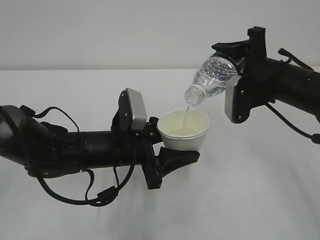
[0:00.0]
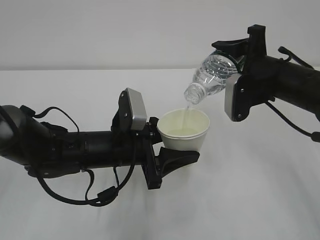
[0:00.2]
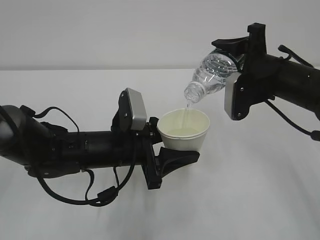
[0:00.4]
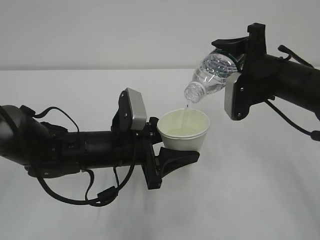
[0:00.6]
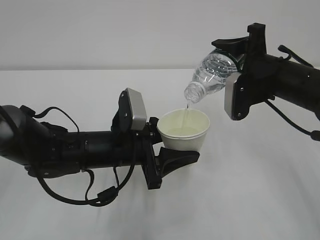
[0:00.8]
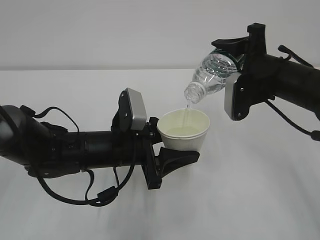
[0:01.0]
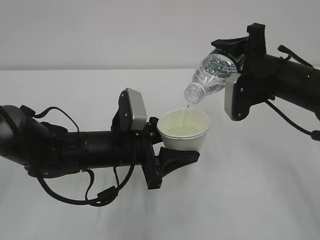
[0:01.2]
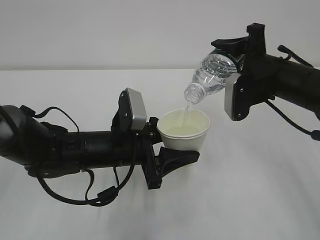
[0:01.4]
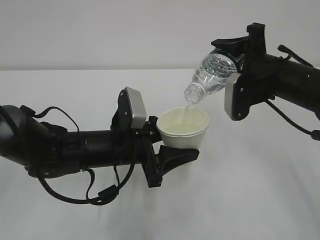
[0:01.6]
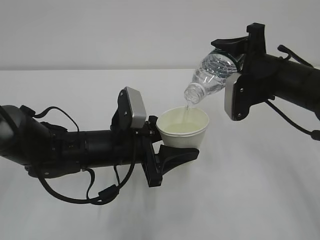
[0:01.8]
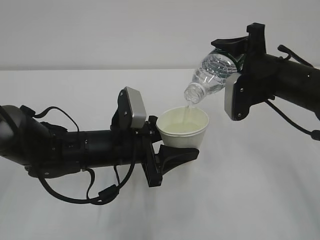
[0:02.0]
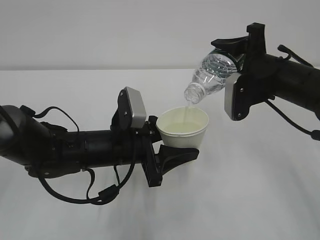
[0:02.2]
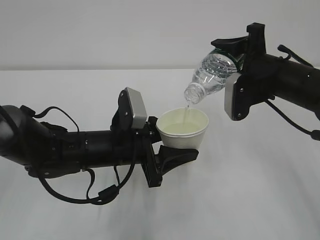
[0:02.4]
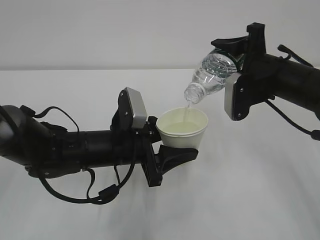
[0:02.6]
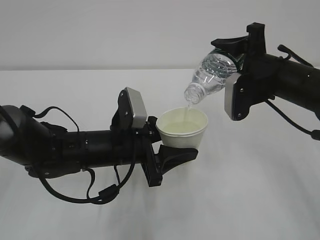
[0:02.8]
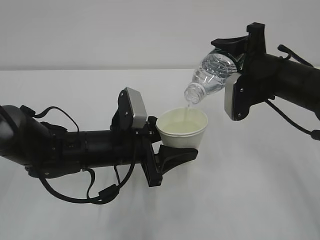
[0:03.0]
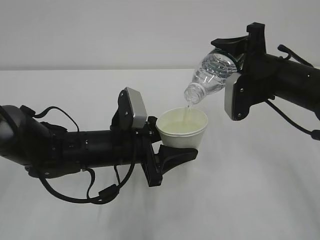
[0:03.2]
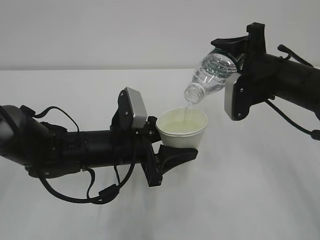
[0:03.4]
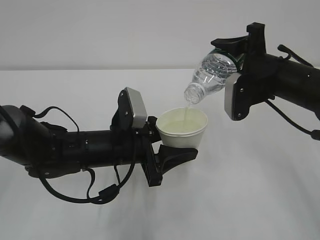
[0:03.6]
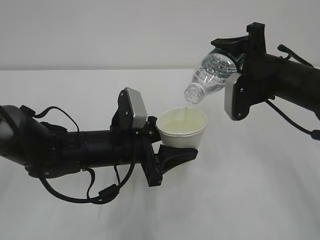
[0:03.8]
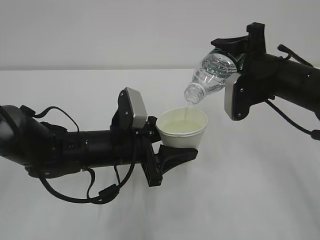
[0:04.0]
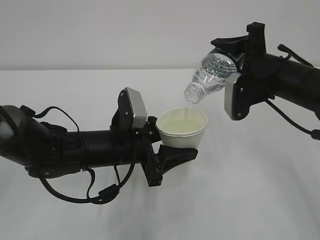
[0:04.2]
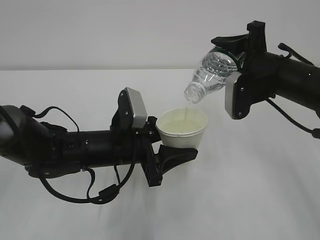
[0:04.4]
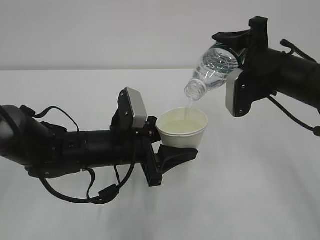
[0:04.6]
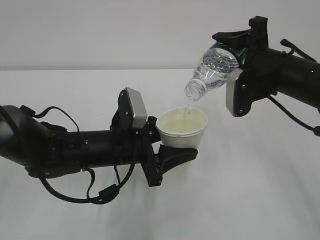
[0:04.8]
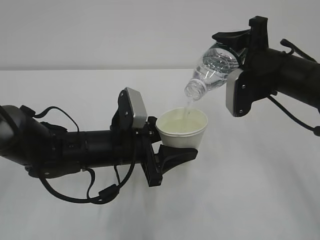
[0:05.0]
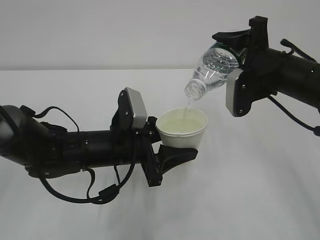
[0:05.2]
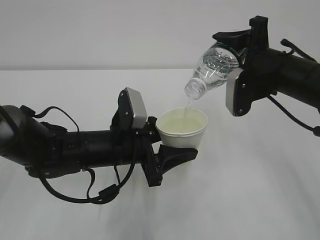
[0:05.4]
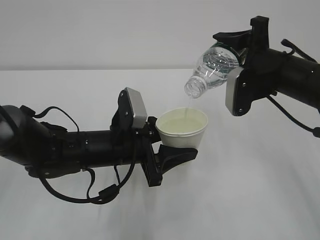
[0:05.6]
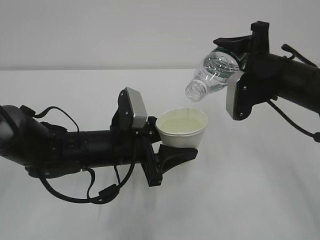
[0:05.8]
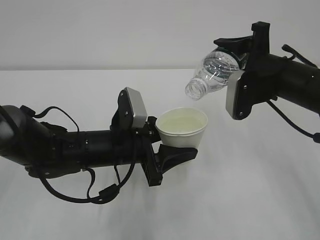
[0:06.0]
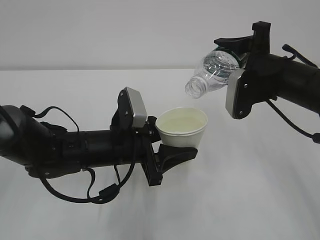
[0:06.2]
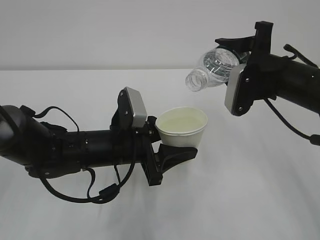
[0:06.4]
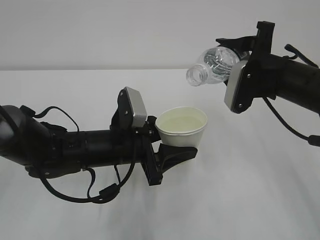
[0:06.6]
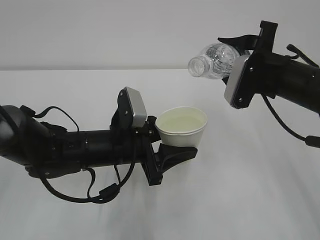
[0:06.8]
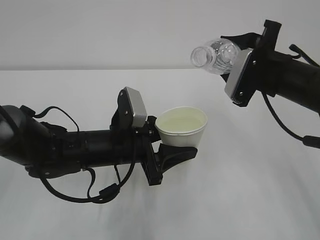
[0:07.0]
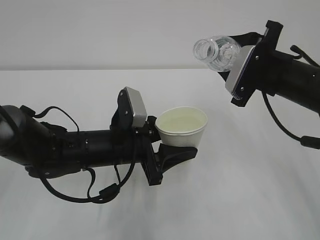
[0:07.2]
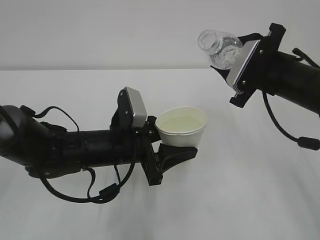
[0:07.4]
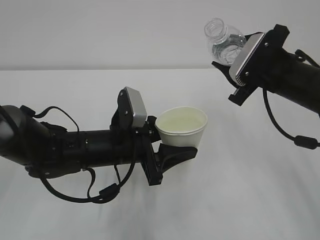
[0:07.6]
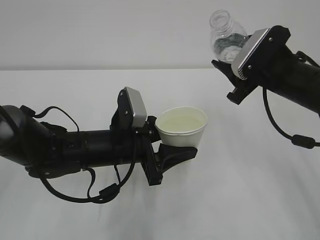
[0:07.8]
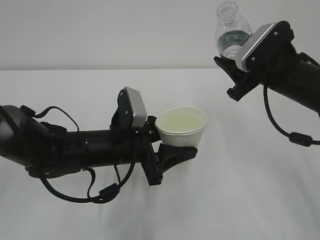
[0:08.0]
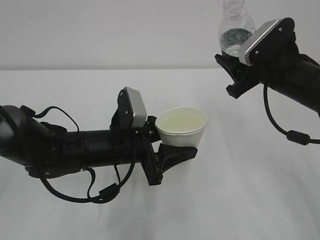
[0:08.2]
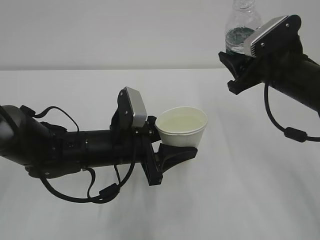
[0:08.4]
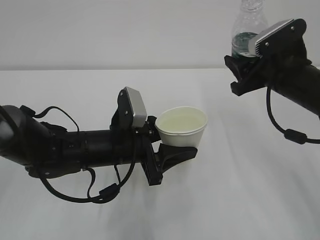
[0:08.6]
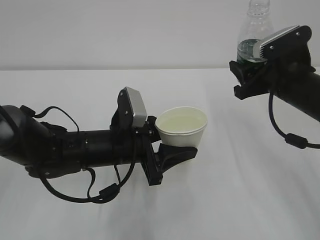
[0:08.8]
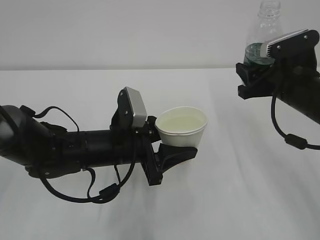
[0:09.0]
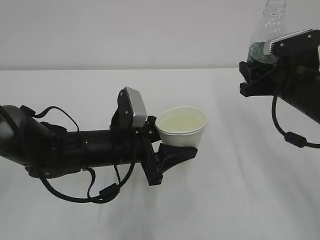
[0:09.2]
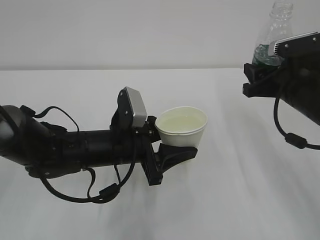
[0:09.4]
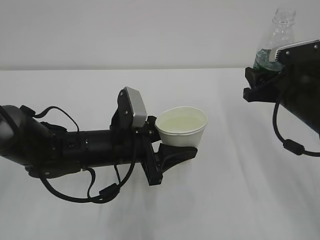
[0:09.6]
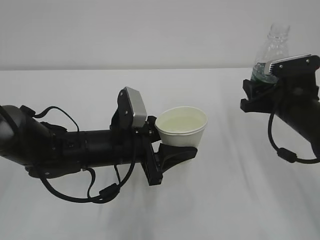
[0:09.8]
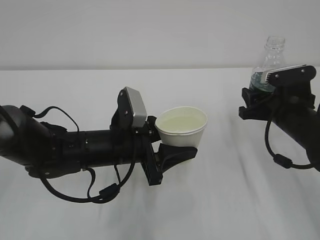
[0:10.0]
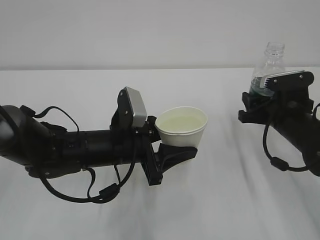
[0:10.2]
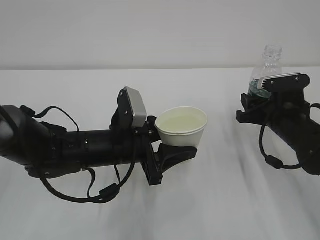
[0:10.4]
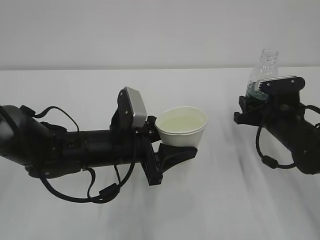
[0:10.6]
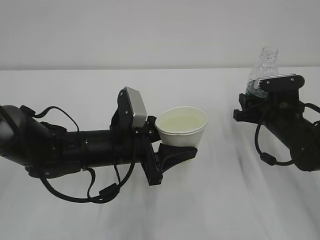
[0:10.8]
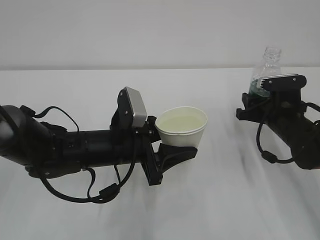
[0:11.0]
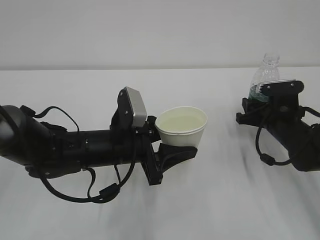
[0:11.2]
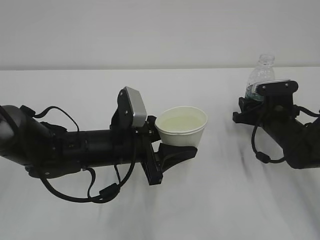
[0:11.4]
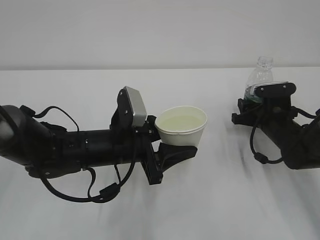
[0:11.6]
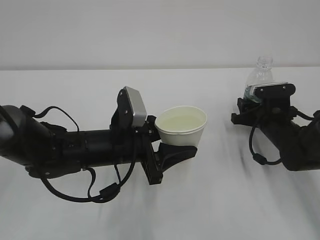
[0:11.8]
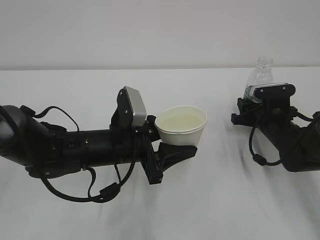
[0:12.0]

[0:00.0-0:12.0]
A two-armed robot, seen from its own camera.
0:00.0 to 0:06.0: Neither gripper changes place.
0:09.0 to 0:10.4: The right gripper moves downward, some 10 cm.
0:10.4 to 0:12.0: The right gripper moves some 5 cm.

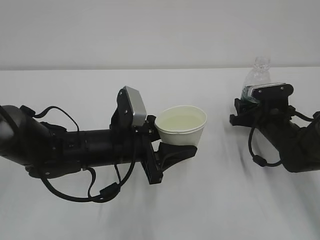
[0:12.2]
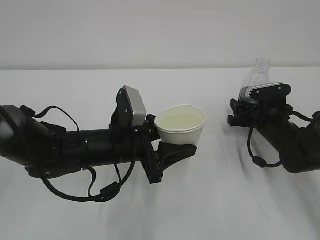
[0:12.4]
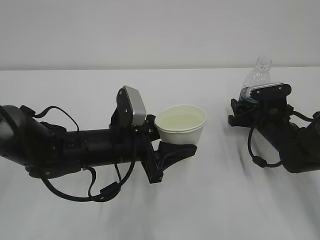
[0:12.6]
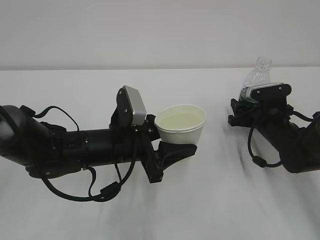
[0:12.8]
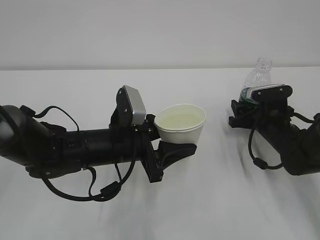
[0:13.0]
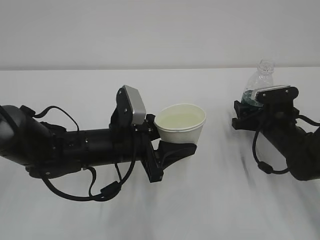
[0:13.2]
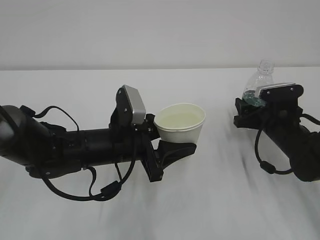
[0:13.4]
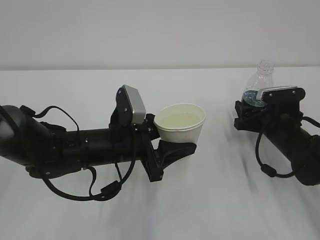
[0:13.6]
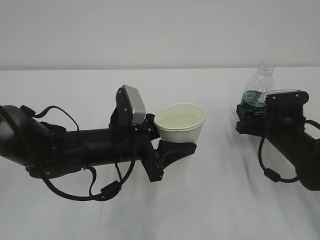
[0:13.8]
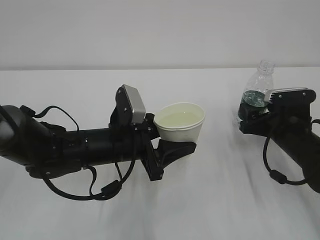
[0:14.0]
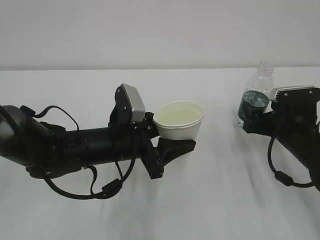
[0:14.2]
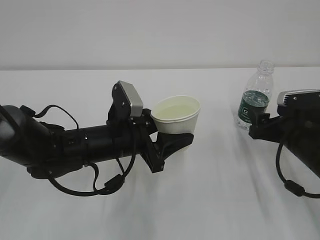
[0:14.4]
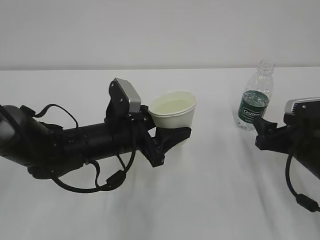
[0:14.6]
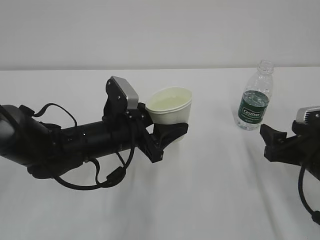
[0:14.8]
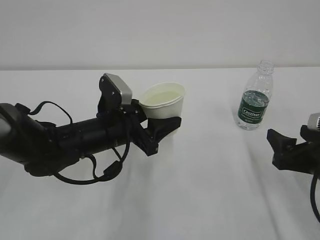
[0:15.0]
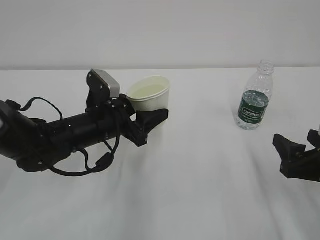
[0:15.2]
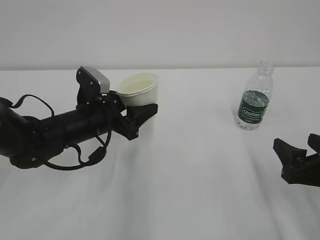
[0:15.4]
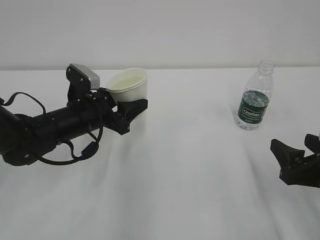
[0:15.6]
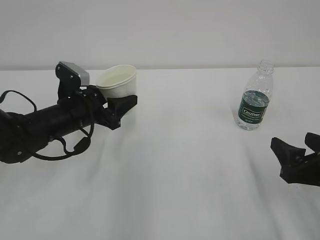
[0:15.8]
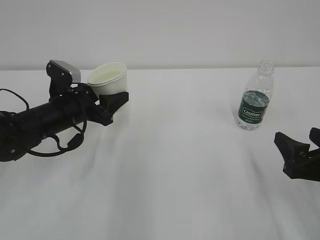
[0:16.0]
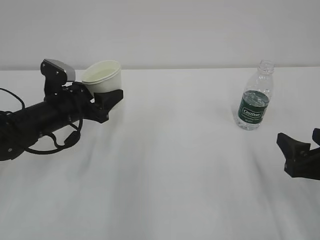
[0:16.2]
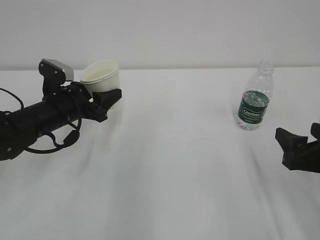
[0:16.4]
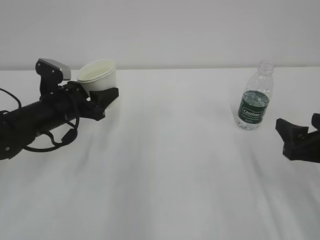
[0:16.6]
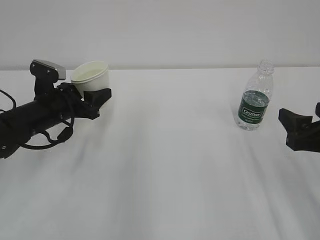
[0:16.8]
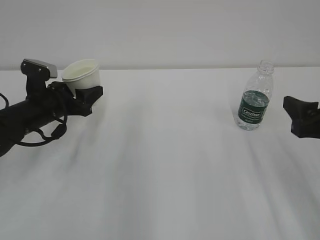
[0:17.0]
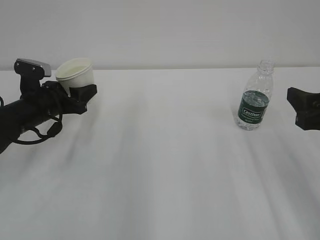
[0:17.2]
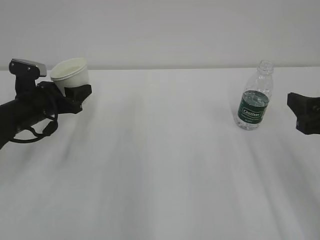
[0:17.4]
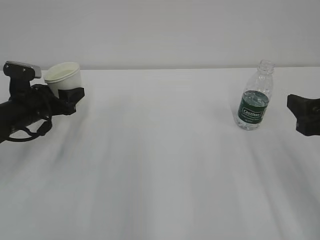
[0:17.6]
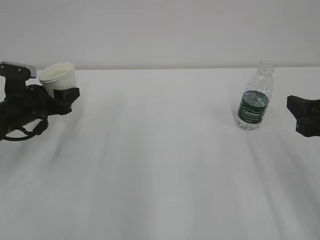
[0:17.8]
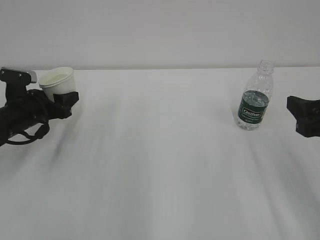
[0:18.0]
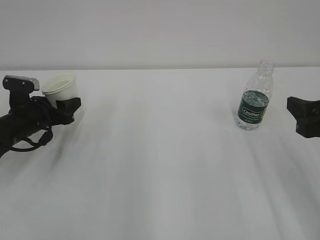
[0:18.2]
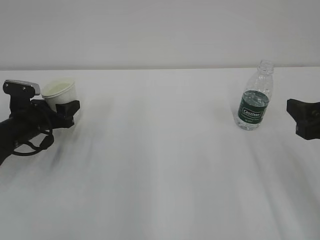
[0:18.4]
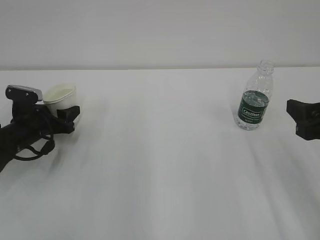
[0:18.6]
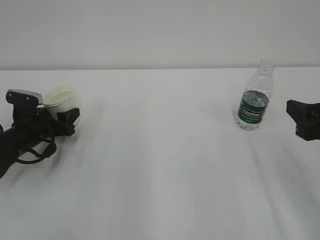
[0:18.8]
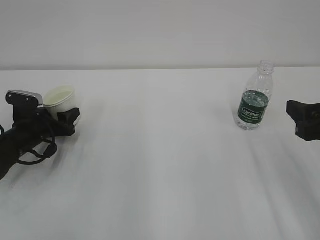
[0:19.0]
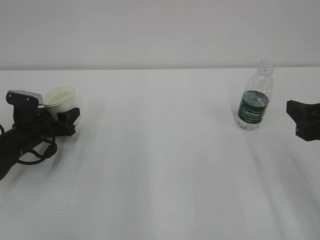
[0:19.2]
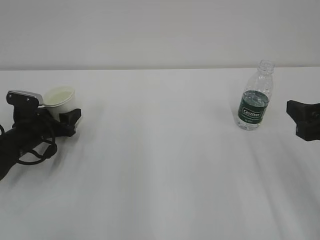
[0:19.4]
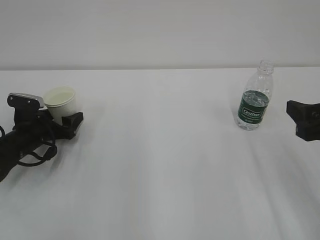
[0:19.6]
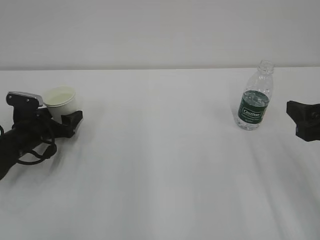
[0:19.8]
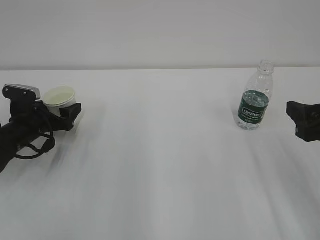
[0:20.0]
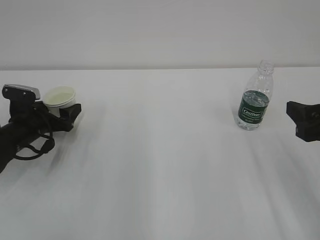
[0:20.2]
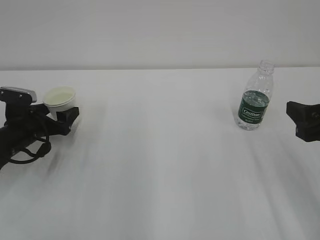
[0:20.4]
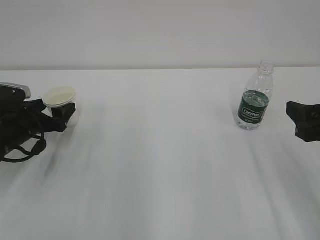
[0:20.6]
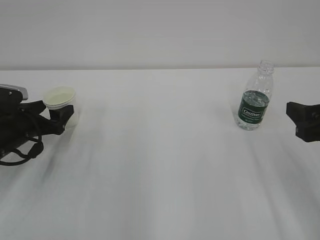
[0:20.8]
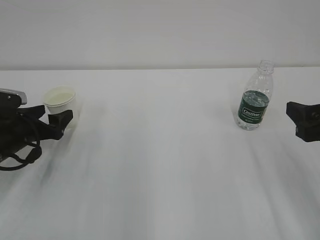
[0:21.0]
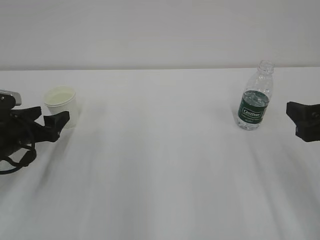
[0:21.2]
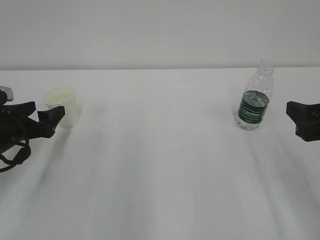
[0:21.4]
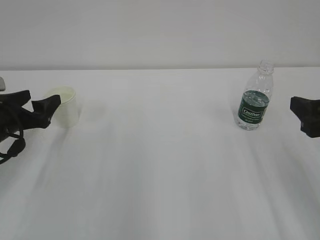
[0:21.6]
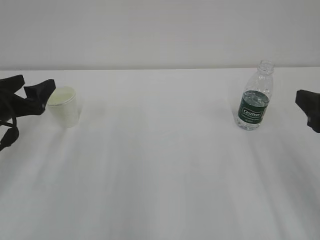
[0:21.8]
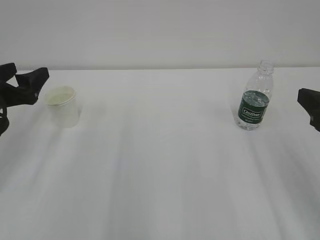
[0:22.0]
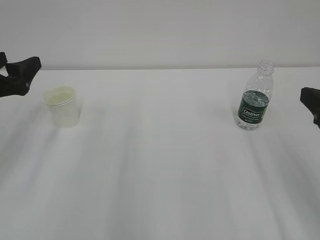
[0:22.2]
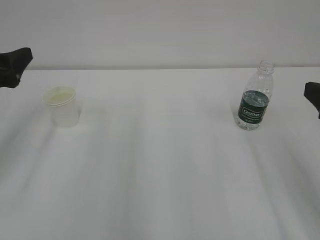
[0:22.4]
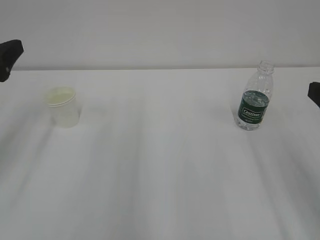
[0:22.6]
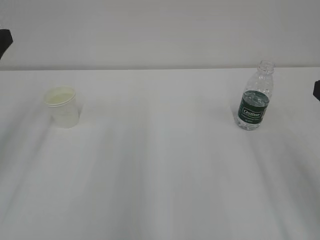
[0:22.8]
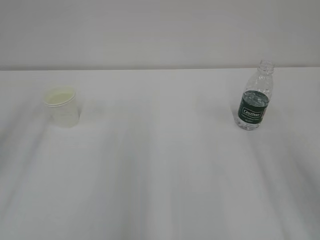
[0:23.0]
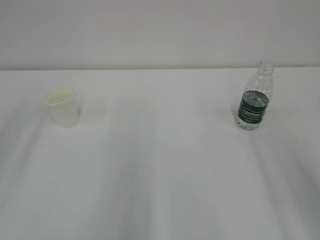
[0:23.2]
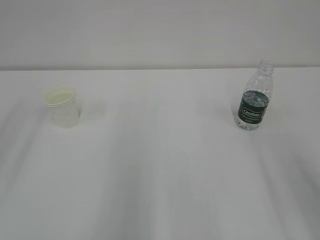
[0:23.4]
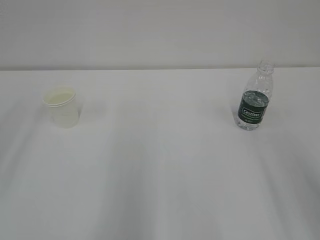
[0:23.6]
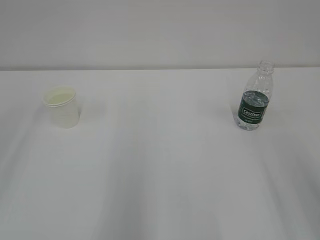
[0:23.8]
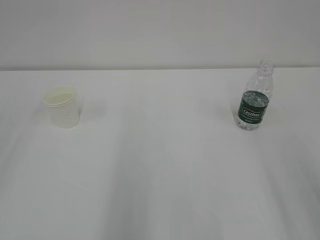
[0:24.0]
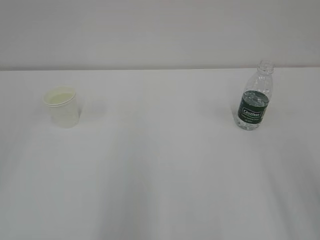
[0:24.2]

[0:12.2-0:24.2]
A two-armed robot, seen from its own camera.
0:12.2 to 0:13.8: The right gripper opens its fingers.
0:13.8 to 0:15.2: The right gripper moves backward, some 15 cm; the left gripper shifts by approximately 5 cm.
0:15.2 to 0:16.6: The left gripper goes approximately 10 cm to the left.
0:16.6 to 0:18.2: The left gripper is displaced to the left by approximately 5 cm, while the right gripper goes about 5 cm upward.
0:18.2 to 0:19.8: The left gripper opens up.
0:19.8 to 0:21.2: The left gripper heads backward, covering approximately 5 cm.
0:21.2 to 0:22.6: The left gripper shifts about 15 cm upward; the right gripper shifts by about 5 cm.
0:22.6 to 0:24.2: The left gripper heads backward and upward, covering some 20 cm.
